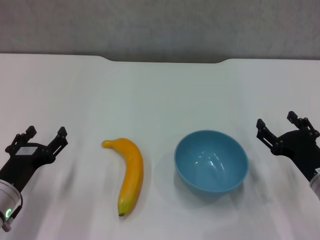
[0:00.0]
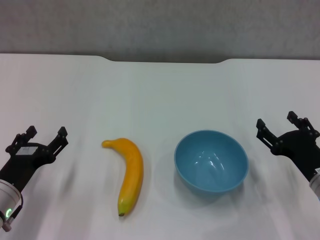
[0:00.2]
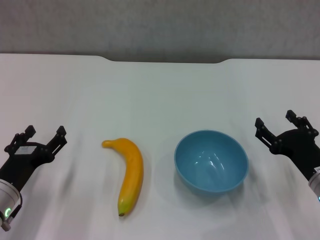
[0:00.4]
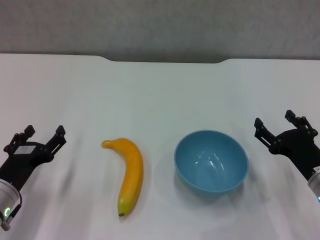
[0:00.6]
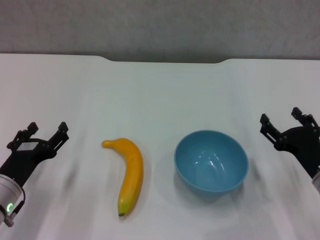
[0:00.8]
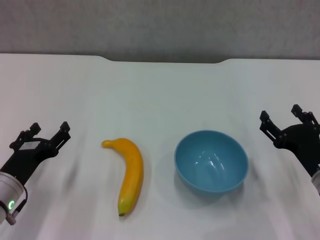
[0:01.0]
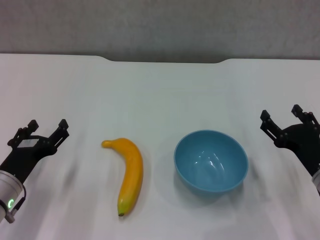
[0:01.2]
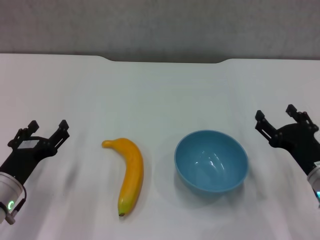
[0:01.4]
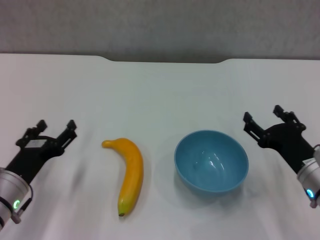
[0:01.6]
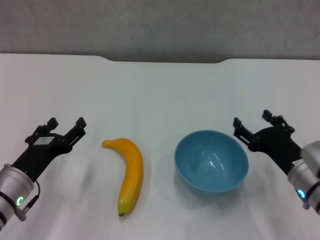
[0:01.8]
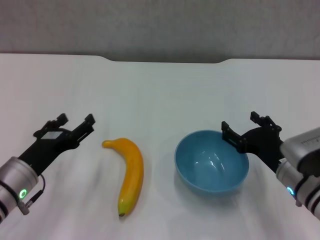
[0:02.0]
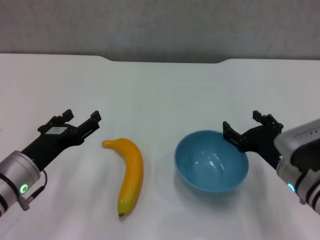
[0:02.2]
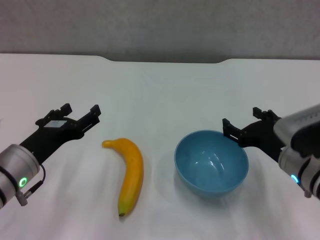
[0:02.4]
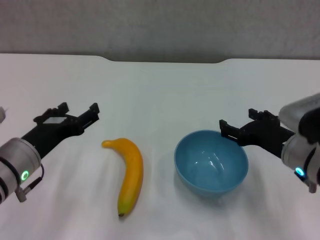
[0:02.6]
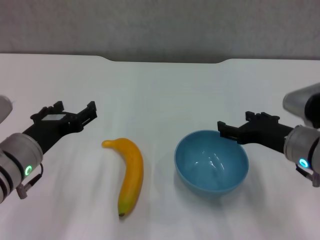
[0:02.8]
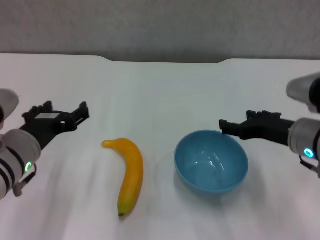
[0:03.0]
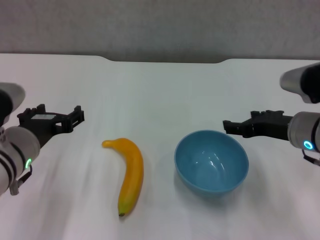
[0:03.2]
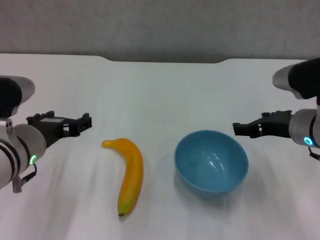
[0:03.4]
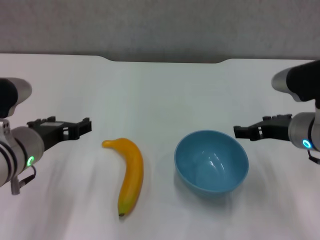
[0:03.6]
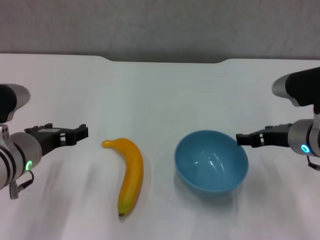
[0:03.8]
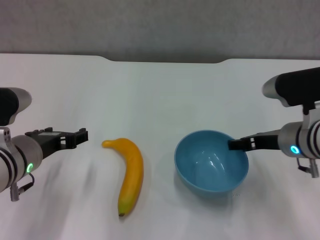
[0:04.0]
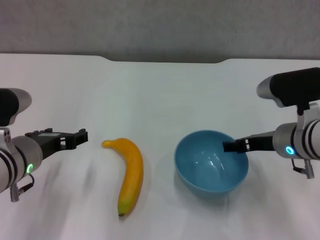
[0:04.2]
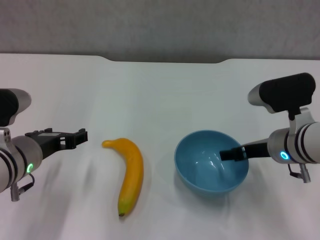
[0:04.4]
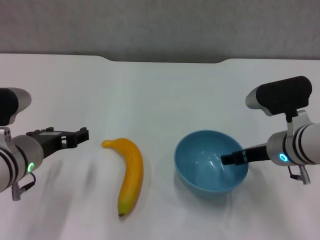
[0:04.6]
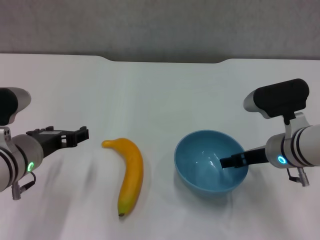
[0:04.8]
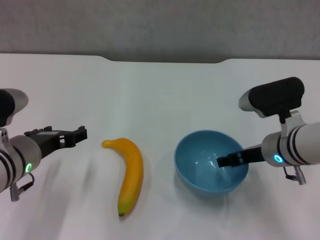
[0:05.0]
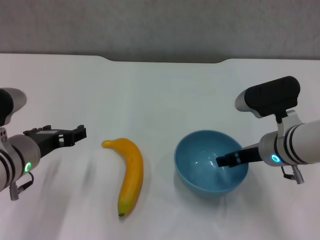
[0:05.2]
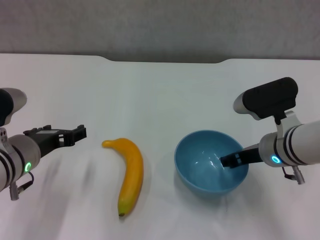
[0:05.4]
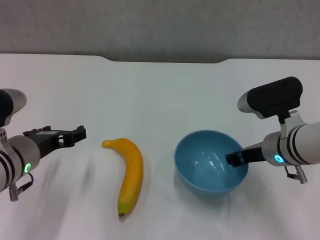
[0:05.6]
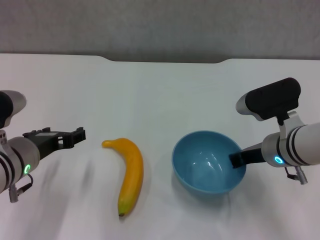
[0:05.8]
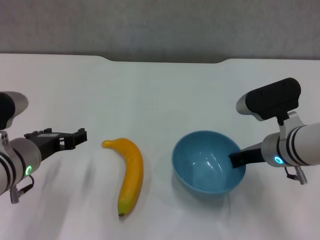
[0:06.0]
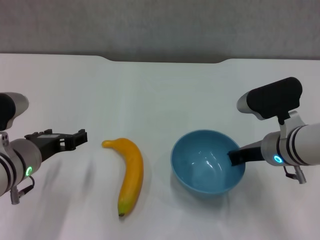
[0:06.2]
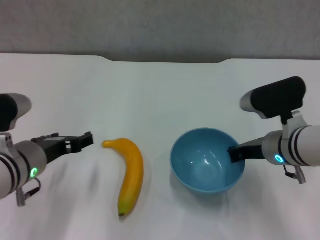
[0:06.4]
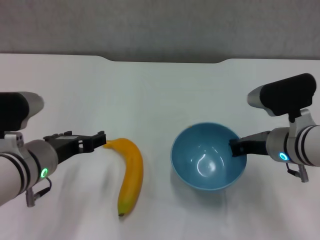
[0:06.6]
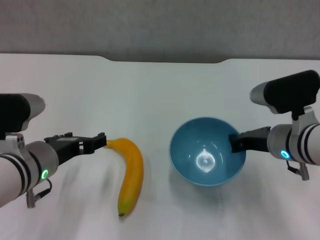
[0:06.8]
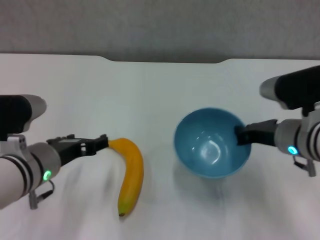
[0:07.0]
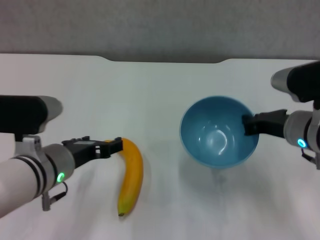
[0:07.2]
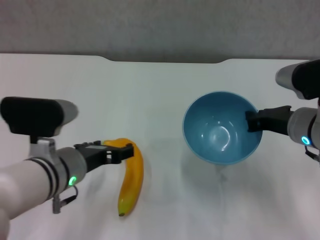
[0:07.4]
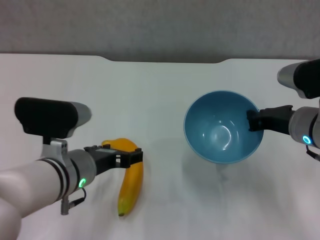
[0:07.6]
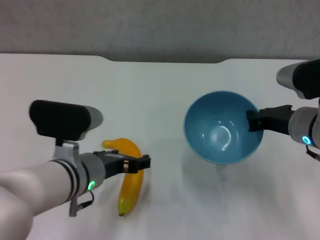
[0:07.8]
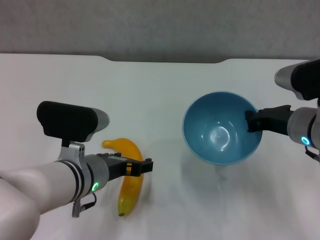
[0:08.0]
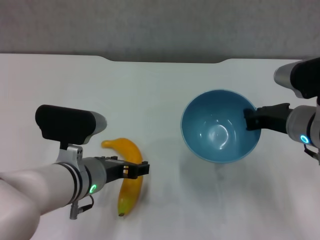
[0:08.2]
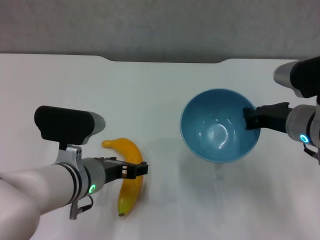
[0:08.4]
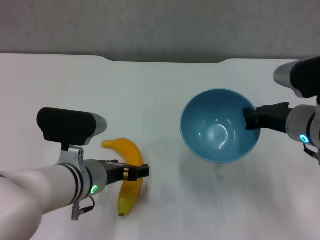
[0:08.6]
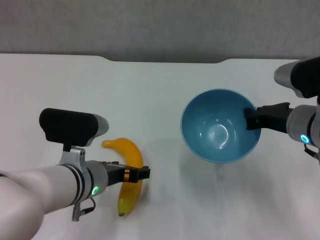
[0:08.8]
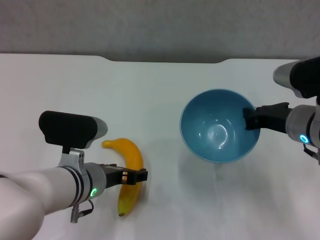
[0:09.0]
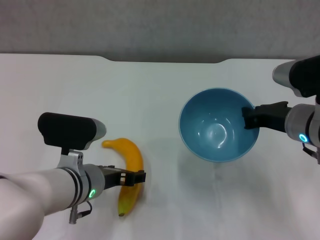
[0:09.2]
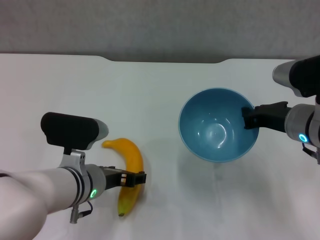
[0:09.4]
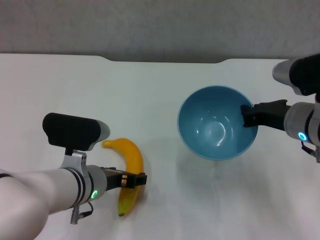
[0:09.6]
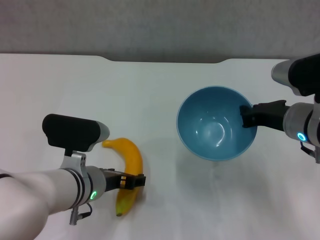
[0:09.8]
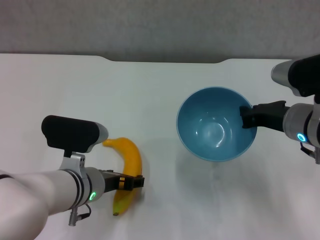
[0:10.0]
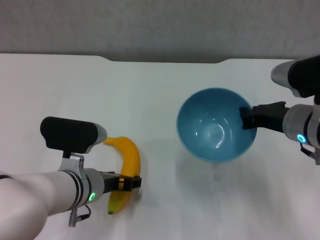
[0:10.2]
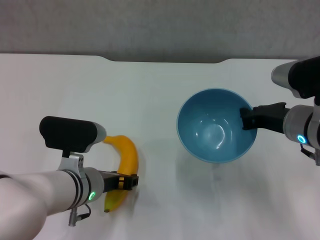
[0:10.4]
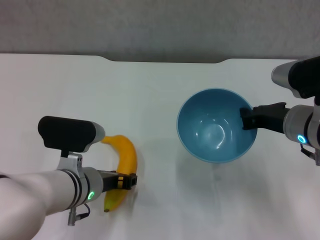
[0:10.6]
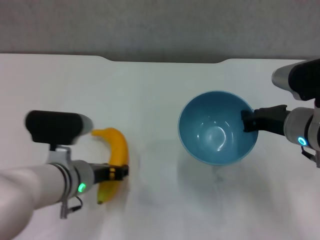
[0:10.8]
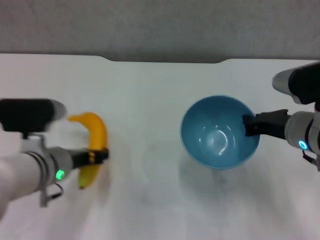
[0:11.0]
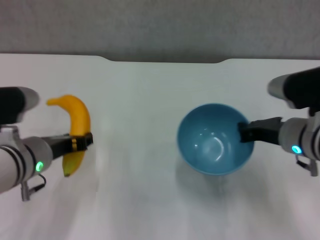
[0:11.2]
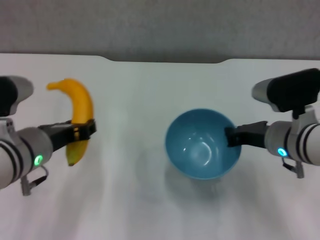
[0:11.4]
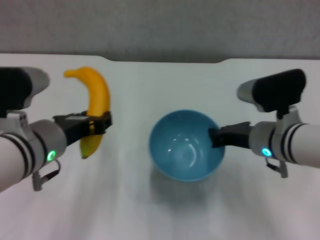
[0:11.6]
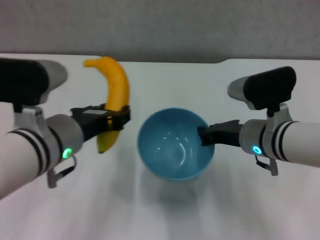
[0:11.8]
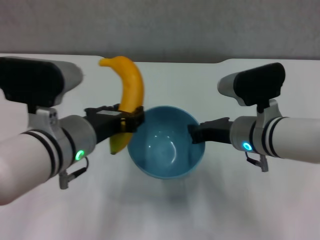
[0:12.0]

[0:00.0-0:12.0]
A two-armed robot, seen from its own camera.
Step, 0:00.0 to 0:06.2: Grasp the blue bowl with right gripper.
Step, 0:06.4 to 0:07.2: Lift the blue bowl with right gripper.
Step, 0:07.4 to 0:10.4: Grasp the banana with left gripper.
0:00.0 to 0:01.6: The grippers stay close to where they were, moving slightly.
0:01.6 to 0:03.0: The two grippers go about 10 cm upward.
0:04.4 to 0:06.0: The right gripper closes.
0:06.0 to 0:07.6: The right gripper shifts by about 5 cm. The left gripper travels to the right by some 5 cm.
0:07.6 to 0:09.0: The grippers make only small movements.
0:09.0 to 0:10.4: Both grippers stay put.
0:10.4 to 0:12.0: The right gripper is displaced to the left by roughly 5 cm. Meanwhile the left gripper goes some 10 cm upward, and closes.

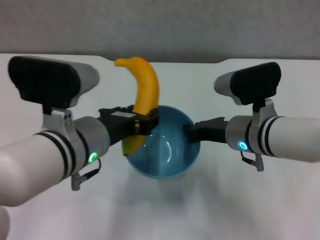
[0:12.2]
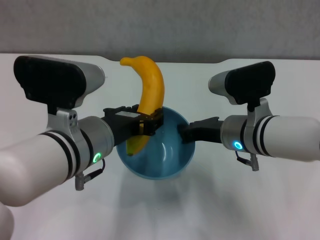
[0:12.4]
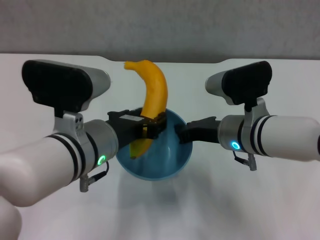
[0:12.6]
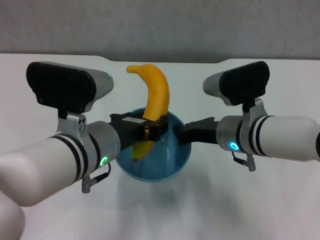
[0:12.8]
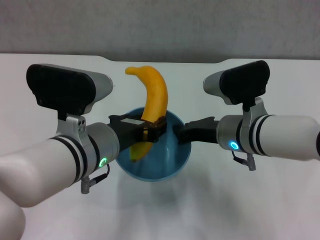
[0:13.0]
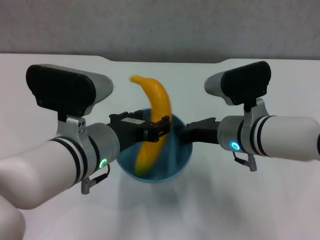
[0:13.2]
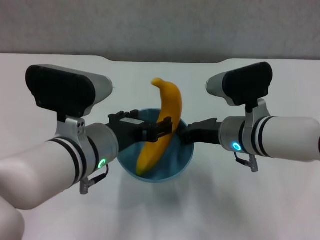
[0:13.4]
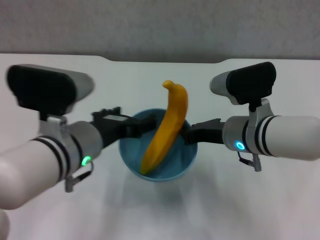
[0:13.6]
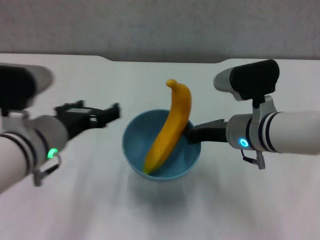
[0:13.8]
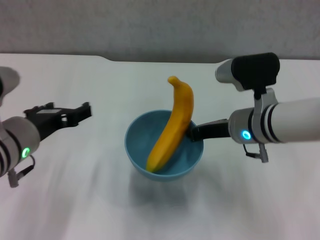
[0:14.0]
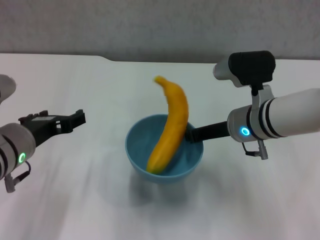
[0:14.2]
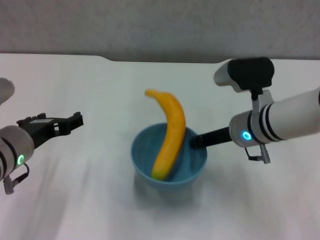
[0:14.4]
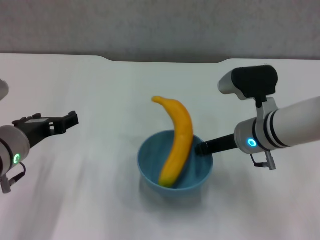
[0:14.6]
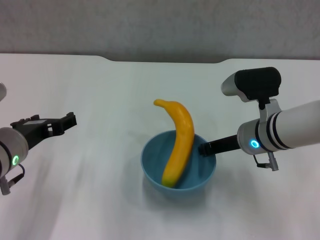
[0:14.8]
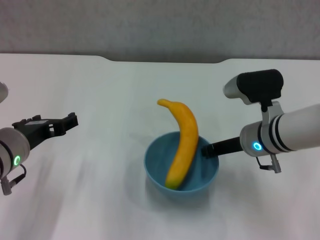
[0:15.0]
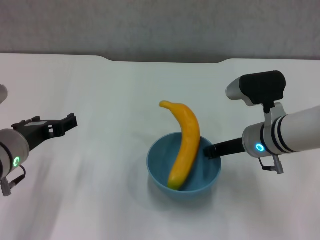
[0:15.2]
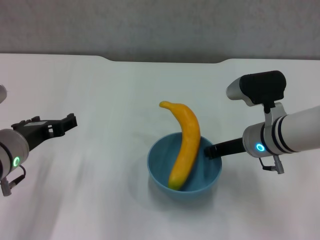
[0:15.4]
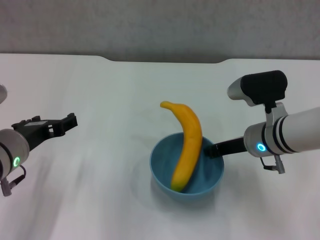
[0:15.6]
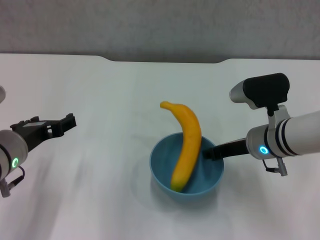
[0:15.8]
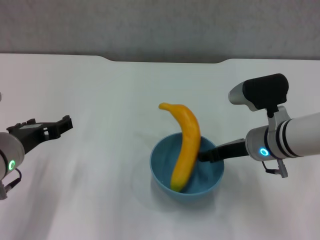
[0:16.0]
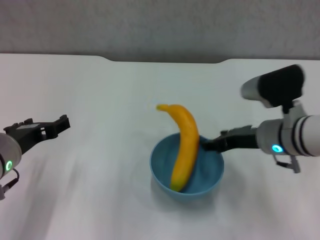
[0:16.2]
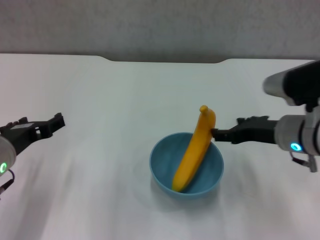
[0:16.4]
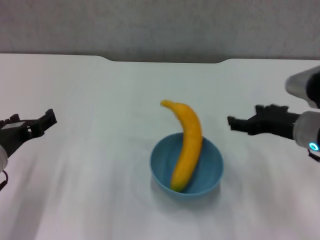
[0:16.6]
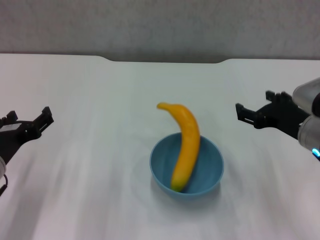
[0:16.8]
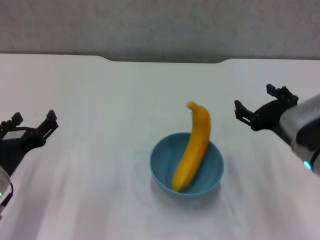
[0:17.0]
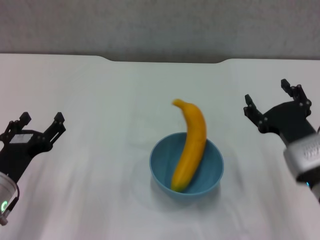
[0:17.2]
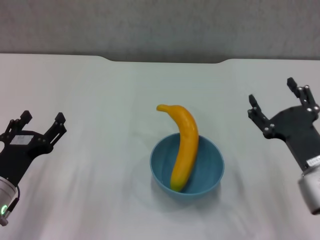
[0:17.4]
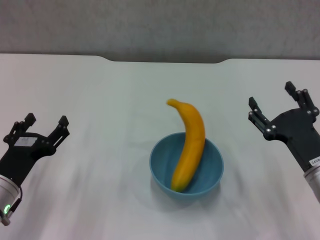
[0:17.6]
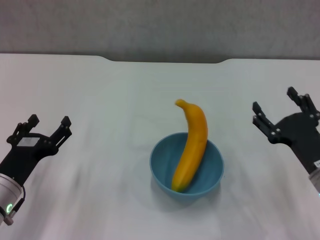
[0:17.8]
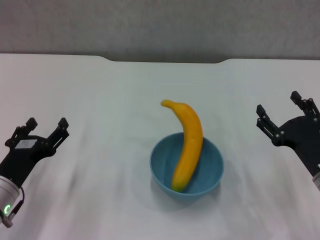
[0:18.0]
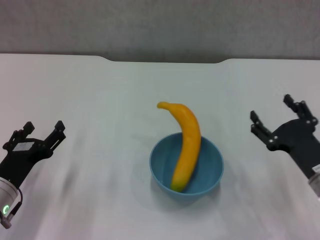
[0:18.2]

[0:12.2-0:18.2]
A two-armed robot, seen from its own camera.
Step, 0:13.6 to 0:16.2: Place the bowl on the table with right gripper.
0:12.2 to 0:13.8: The left gripper is displaced to the left by about 5 cm, and opens up.
0:13.8 to 0:15.2: The left gripper heads to the left, covering roughly 5 cm.
0:15.2 to 0:16.6: The right gripper goes about 5 cm to the right, and opens up.
0:16.6 to 0:18.2: The right gripper is displaced downward and backward by some 10 cm. The left gripper is displaced downward by approximately 10 cm.
